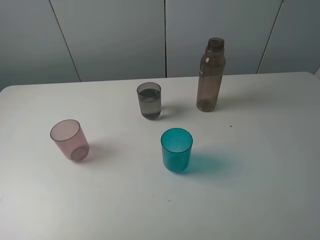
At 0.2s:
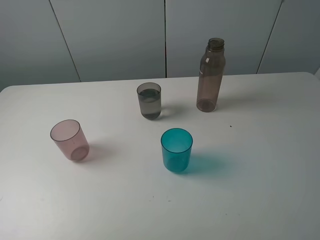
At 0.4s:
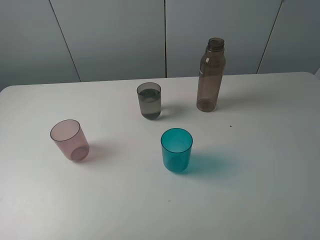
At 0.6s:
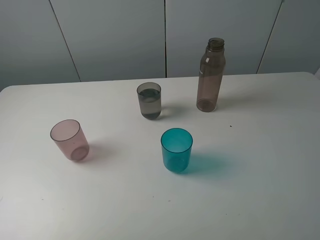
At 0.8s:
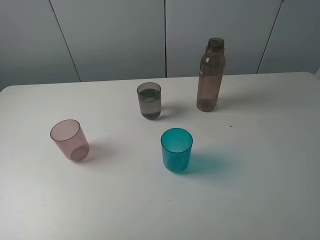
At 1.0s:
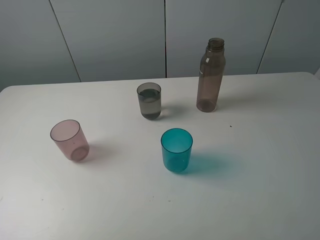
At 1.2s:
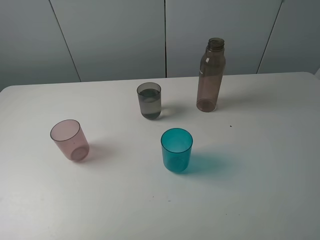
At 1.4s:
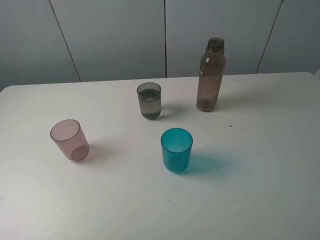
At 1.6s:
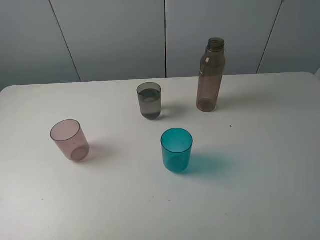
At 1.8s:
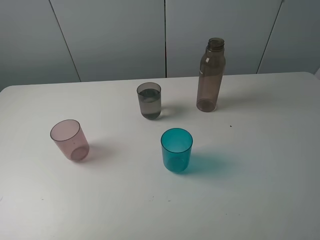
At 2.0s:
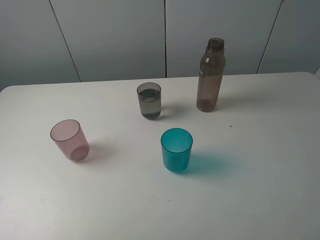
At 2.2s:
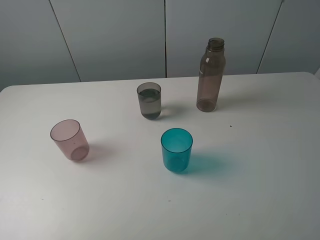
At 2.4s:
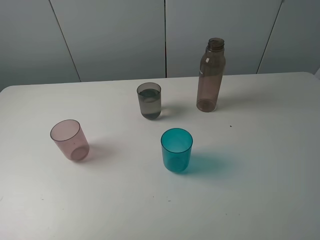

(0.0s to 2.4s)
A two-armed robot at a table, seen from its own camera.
Task of the whole recording: pick up the bottle filled with water and pour water into the middle cup of the three cups.
1.2s - 2.4s: Both grippers stay put.
